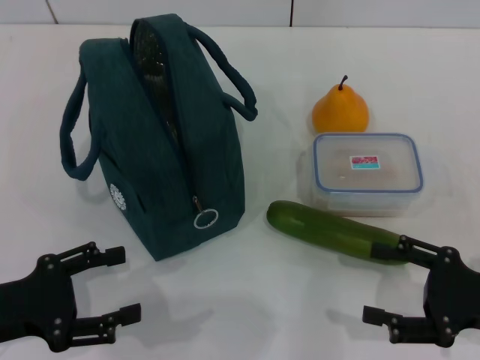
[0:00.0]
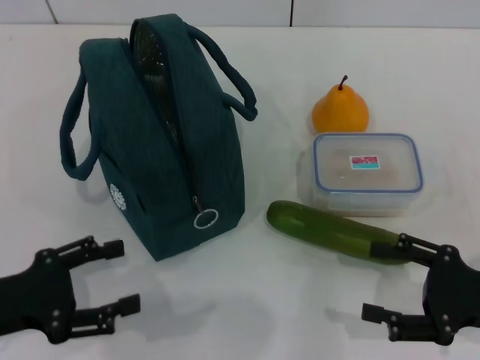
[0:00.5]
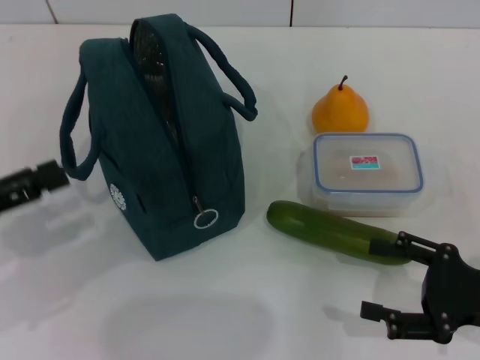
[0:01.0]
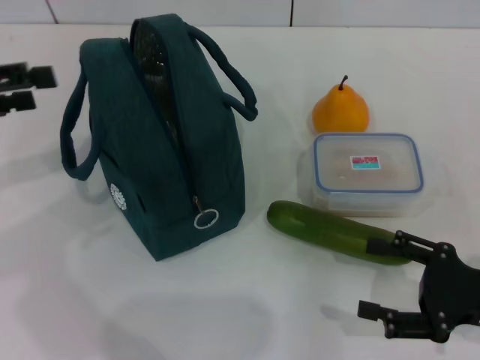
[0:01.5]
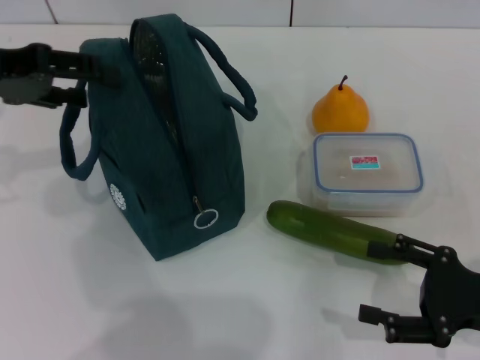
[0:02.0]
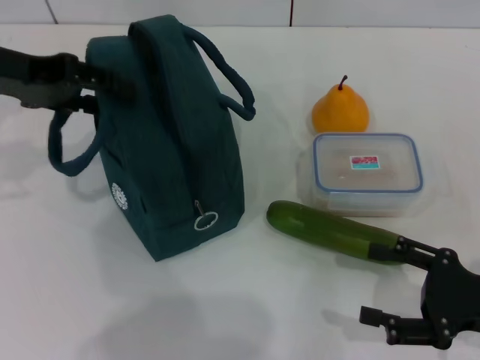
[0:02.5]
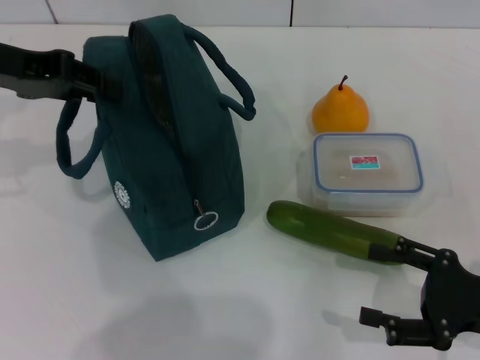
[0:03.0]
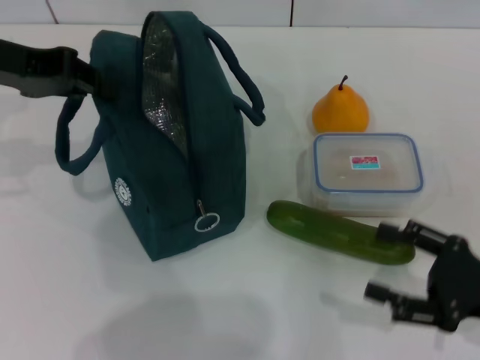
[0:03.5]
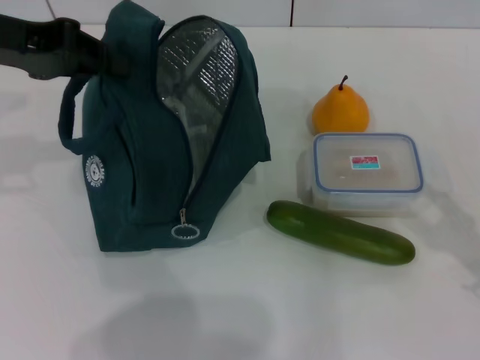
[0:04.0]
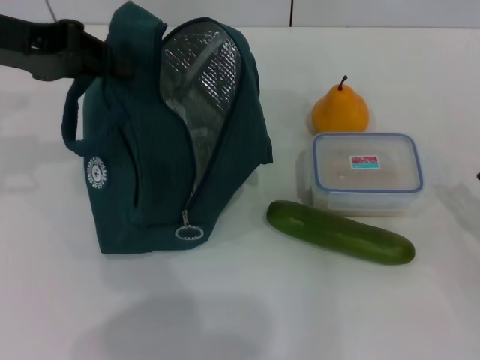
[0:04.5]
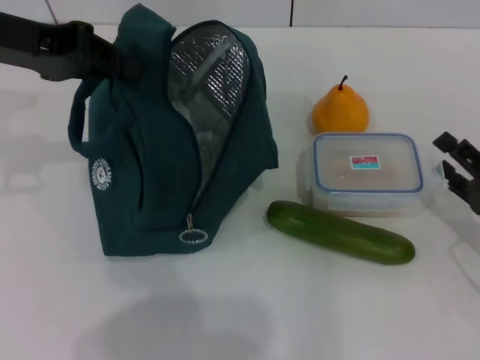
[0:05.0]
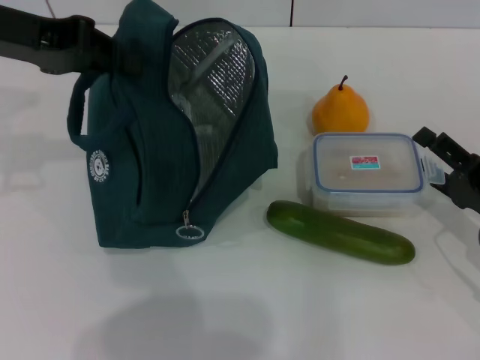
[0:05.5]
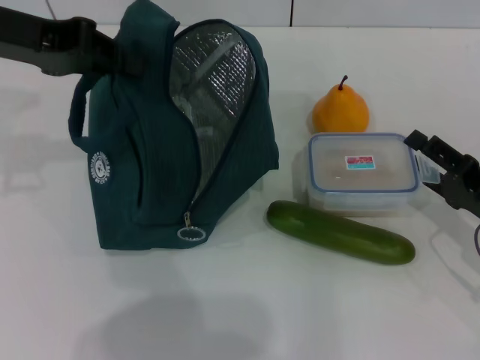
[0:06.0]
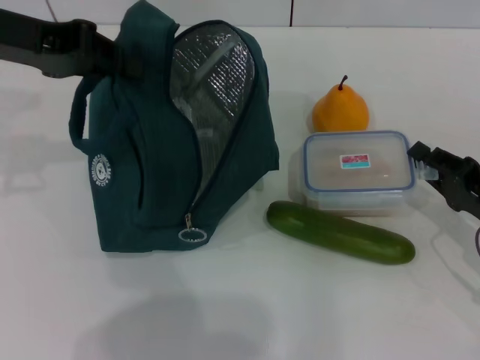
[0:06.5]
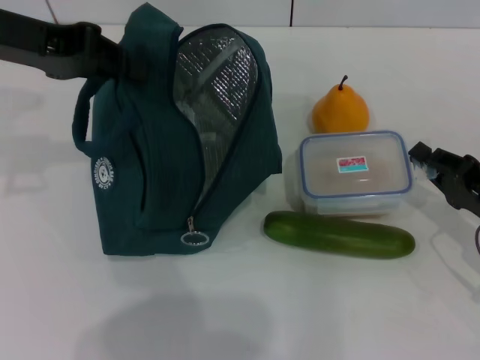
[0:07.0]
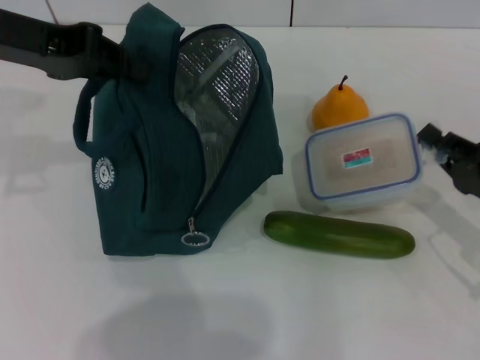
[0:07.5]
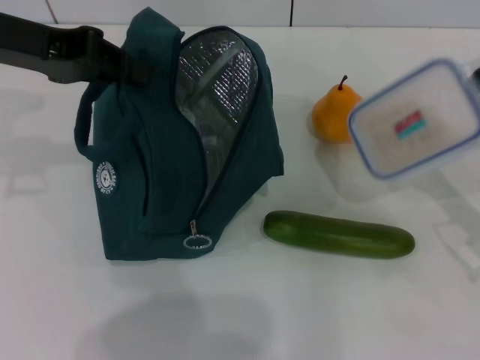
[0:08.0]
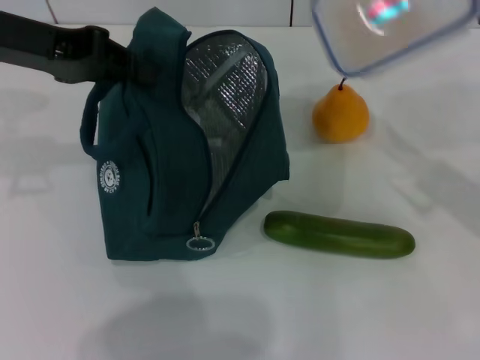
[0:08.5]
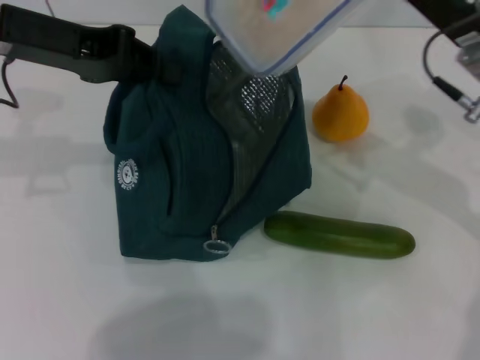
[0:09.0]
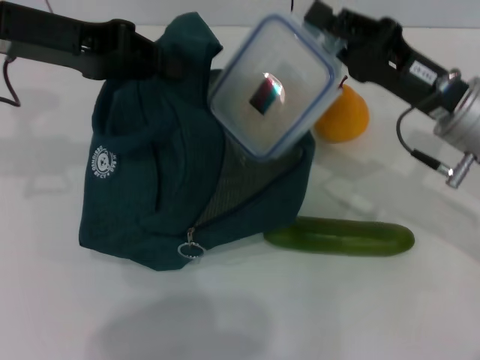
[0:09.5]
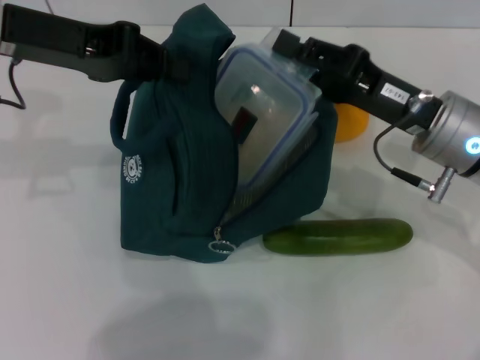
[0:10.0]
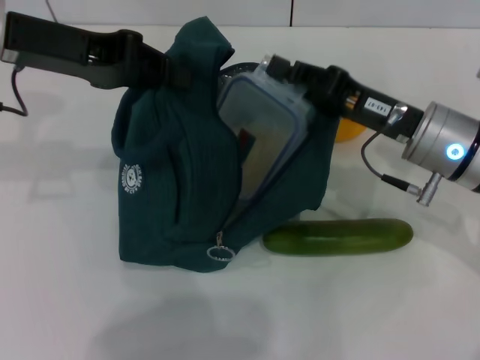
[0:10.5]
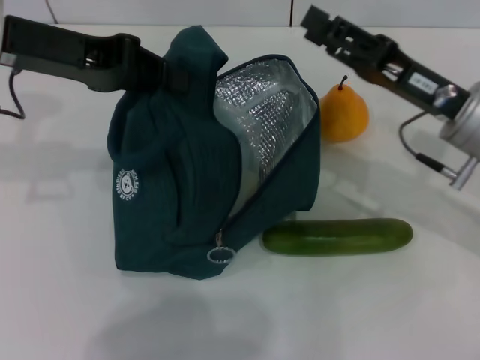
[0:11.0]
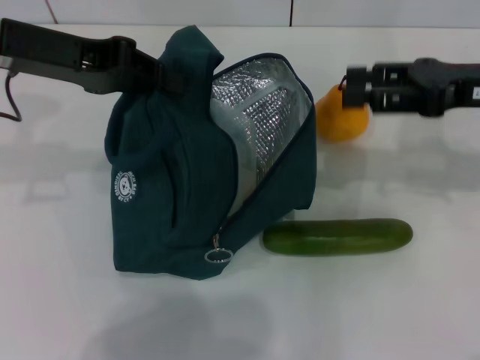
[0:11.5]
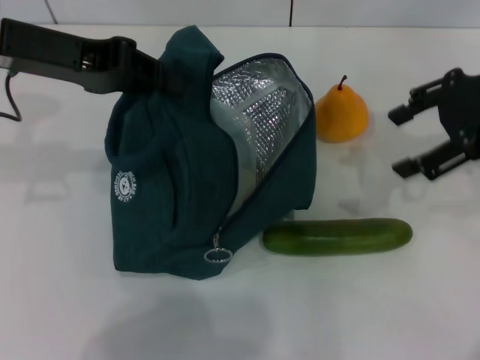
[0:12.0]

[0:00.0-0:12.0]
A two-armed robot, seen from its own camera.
Step, 0:00.0 to 0:03.0: Hold the lunch bag with your left hand.
Step, 0:03.5 to 0:07.5: Pick up the lunch box with your right hand.
Step, 0:08.0 to 0:10.5: Place the lunch box into the lunch bag with your right hand.
0:00.0 to 0:02.0: The left gripper shifts some 25 cm upward and forward.
0:02.0 to 0:04.0: The left gripper closes.
0:04.0 to 0:06.0: The right gripper is displaced forward by approximately 5 cm.
0:06.0 to 0:08.0: The right gripper closes.
0:08.0 to 0:10.0: The right gripper moves to the left and forward, approximately 15 cm.
0:10.0 to 0:12.0: The right gripper goes some 15 cm upward and to the right, and opens.

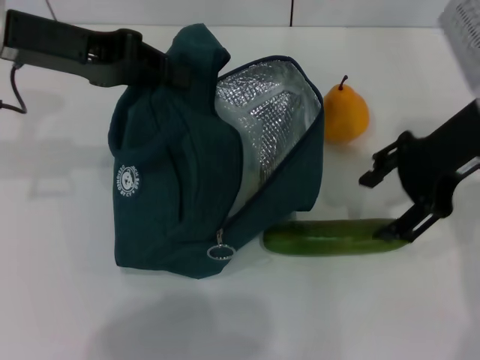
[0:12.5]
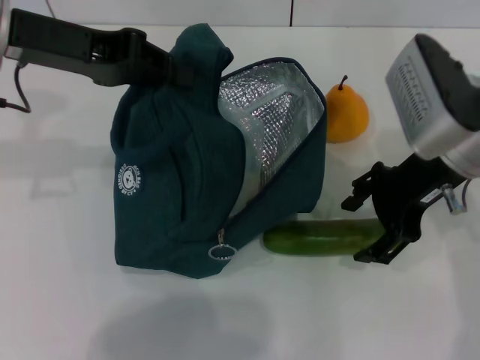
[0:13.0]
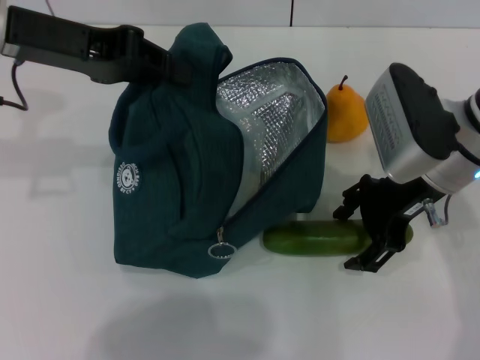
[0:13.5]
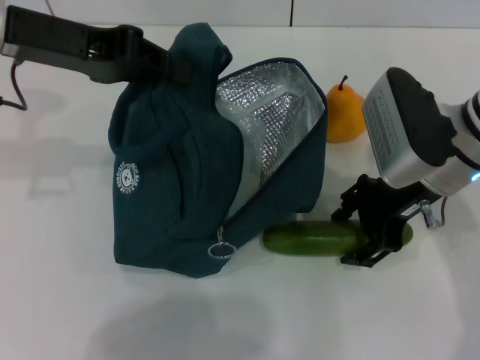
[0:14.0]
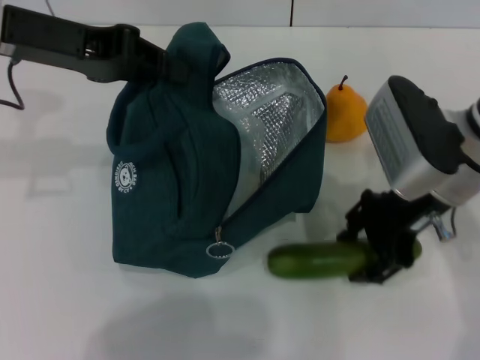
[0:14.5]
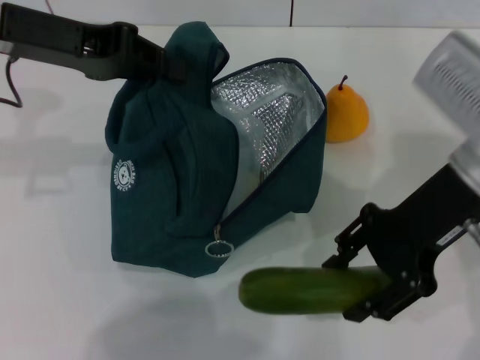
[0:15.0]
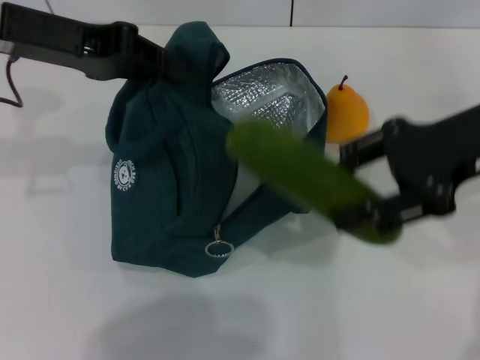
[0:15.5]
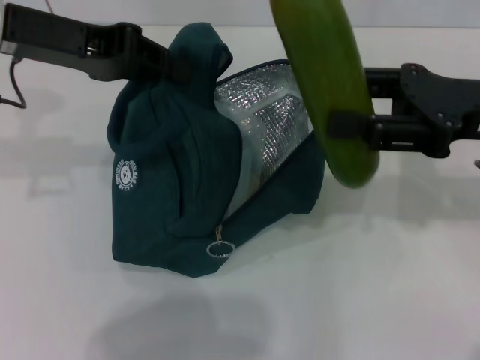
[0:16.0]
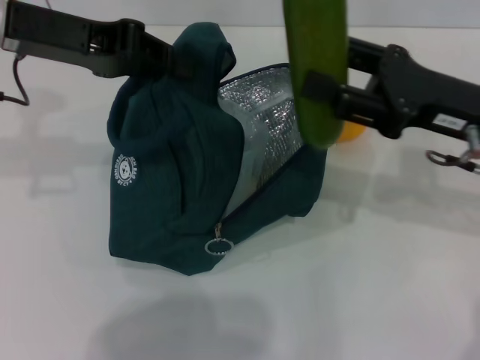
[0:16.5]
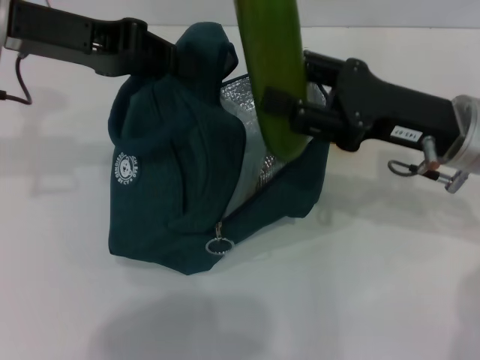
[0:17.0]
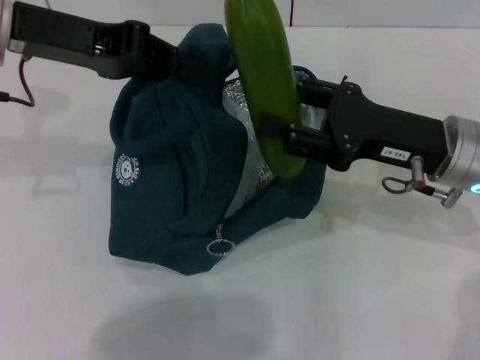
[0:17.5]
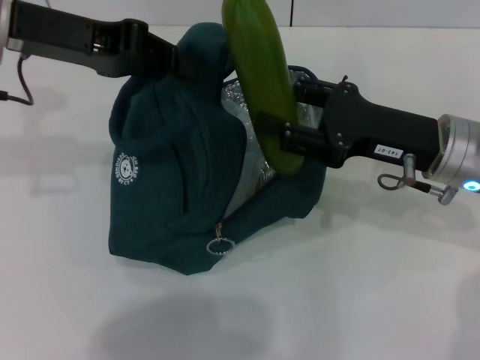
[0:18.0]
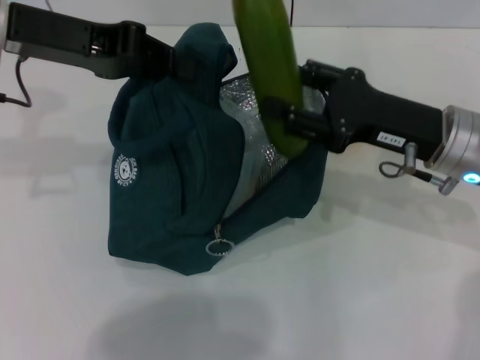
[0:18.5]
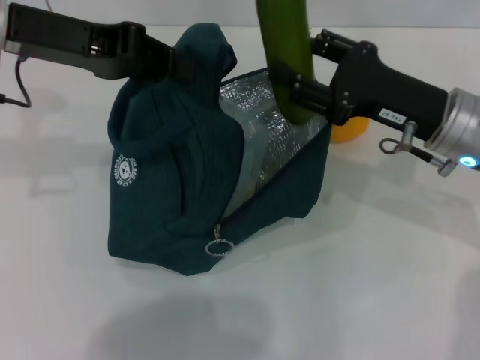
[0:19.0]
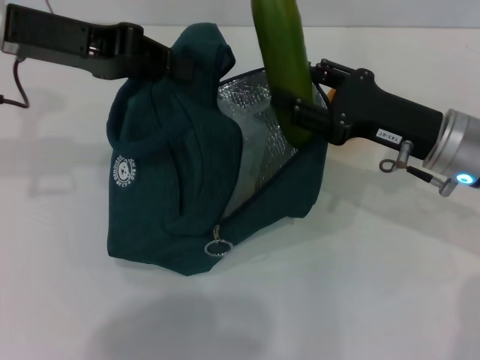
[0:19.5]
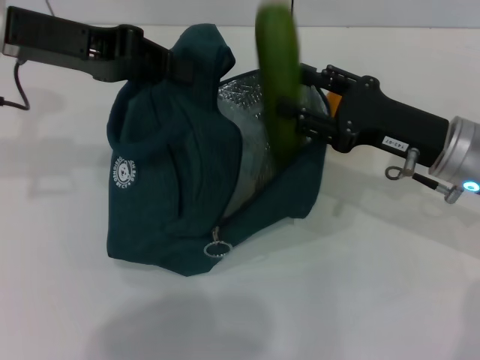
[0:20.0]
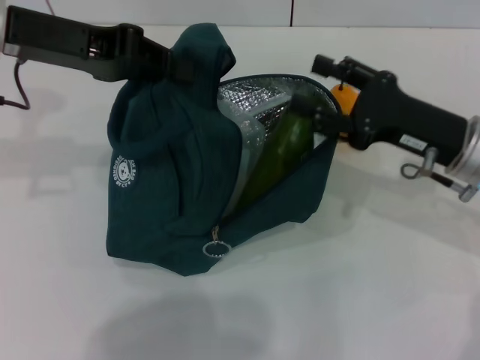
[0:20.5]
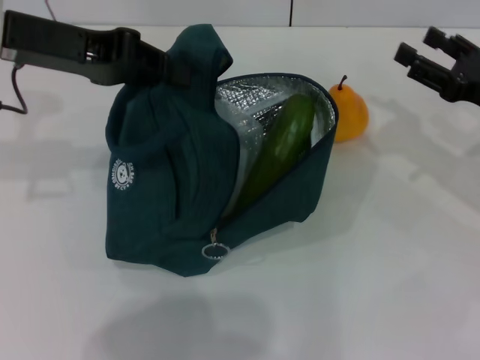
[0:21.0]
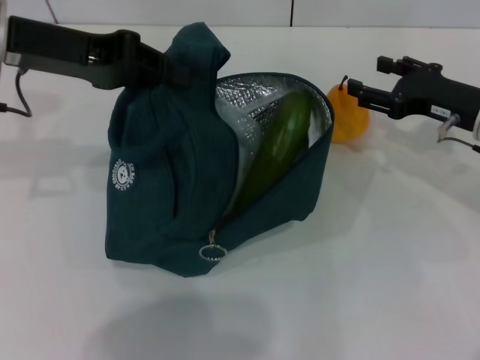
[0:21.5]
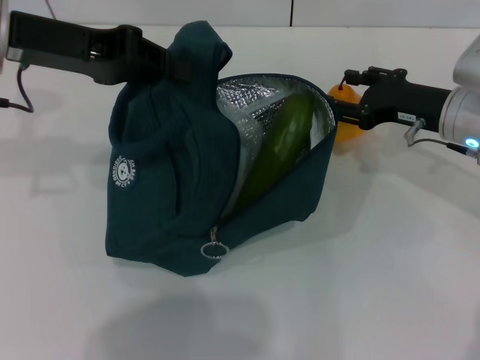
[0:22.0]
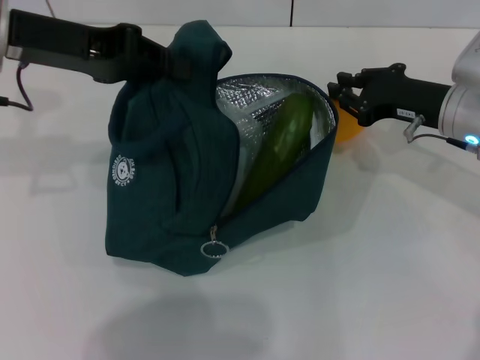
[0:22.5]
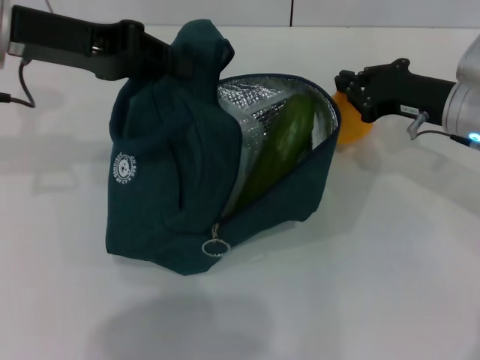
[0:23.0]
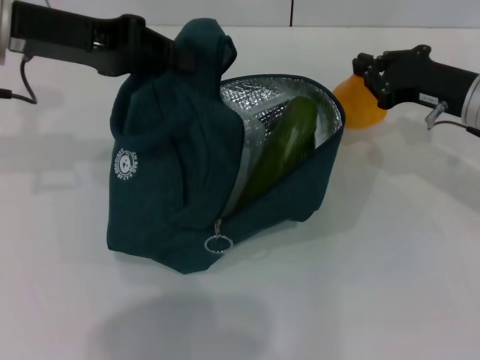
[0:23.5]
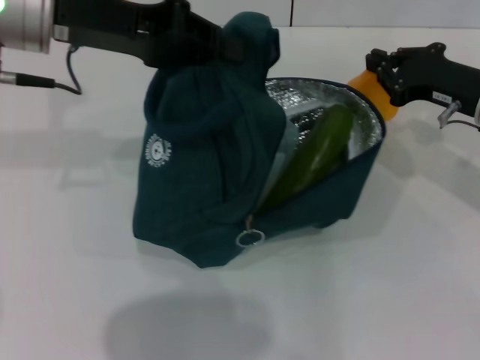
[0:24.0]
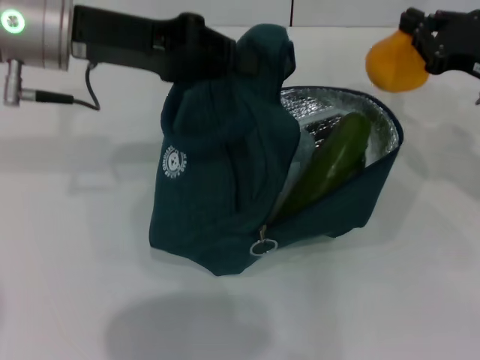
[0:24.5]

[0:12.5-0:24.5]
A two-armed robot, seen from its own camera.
Step, 0:14.5 to 0:20.5: Put the cucumber into the lunch bag with your right hand.
Step, 0:21.0 to 0:23.0: Grab the pear with your right hand.
0:12.5 to 0:14.5: The right gripper is displaced downward by roughly 5 cm.
0:14.5 to 0:16.5: The right gripper moves to the right, roughly 5 cm.
0:16.5 to 0:20.5: The grippers move only a little.
0:20.5 to 0:22.5: The right gripper is displaced forward by some 5 cm, reaches some 10 cm to the right, then returns, and closes up.
0:22.5 to 0:24.5: The right gripper is displaced to the right by about 5 cm.

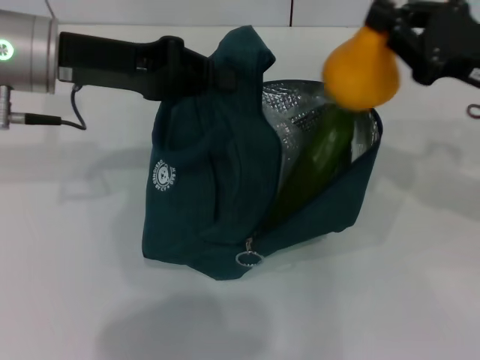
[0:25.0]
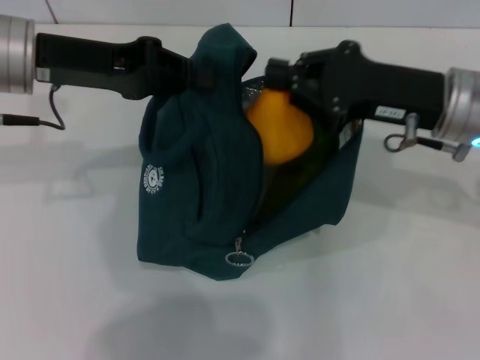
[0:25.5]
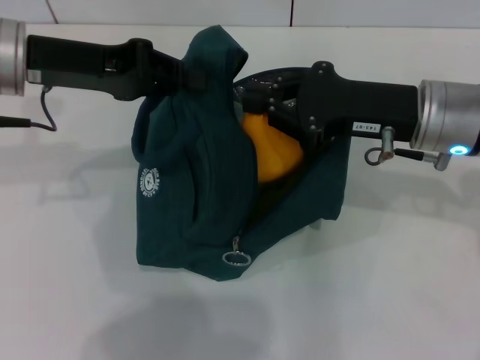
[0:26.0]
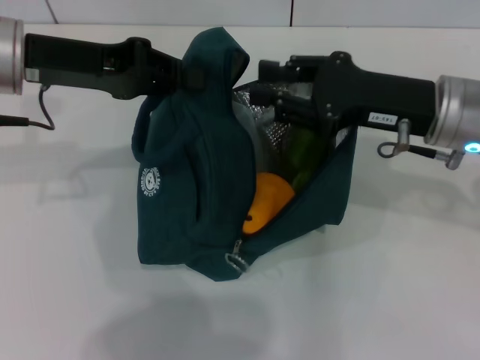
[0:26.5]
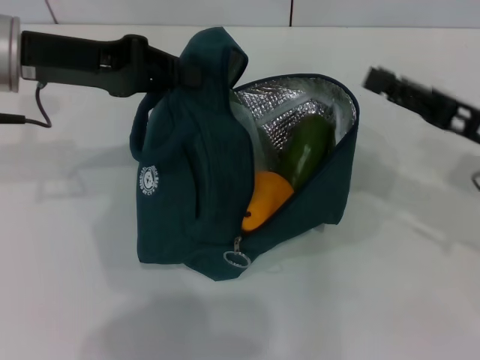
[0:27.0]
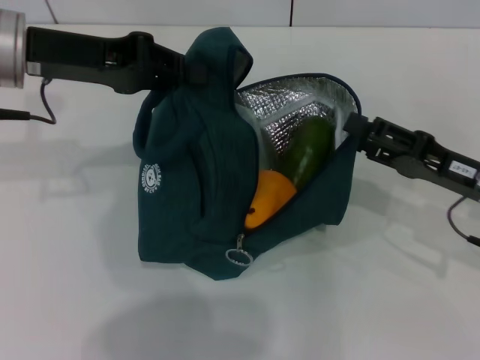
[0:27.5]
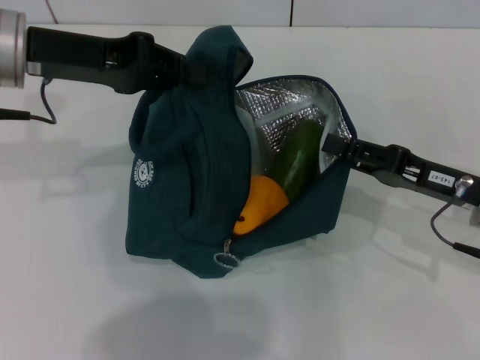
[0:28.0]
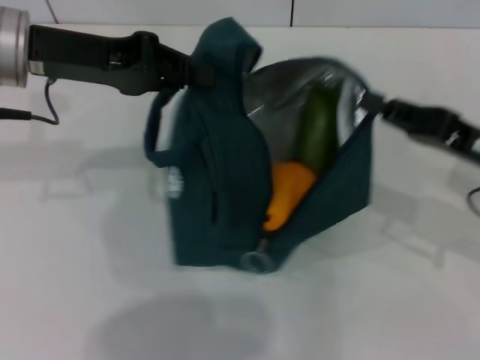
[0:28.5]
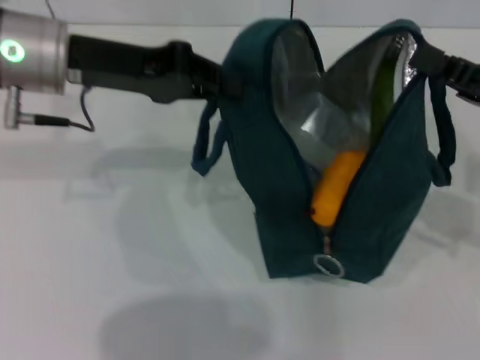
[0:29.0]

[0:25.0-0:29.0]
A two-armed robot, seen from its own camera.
0:25.0 to 0:27.0: The right gripper goes to the left and returns, approximately 10 cm each way, and opens.
0:27.0 to 0:29.0: The right gripper closes up.
